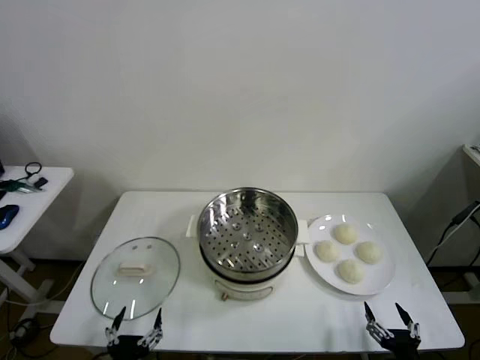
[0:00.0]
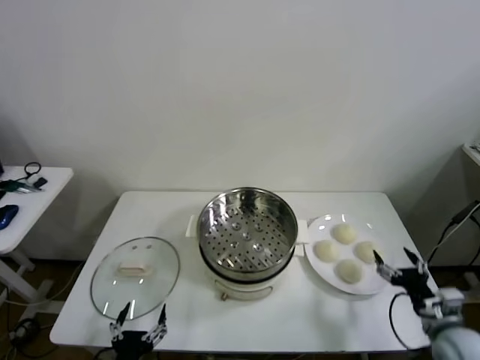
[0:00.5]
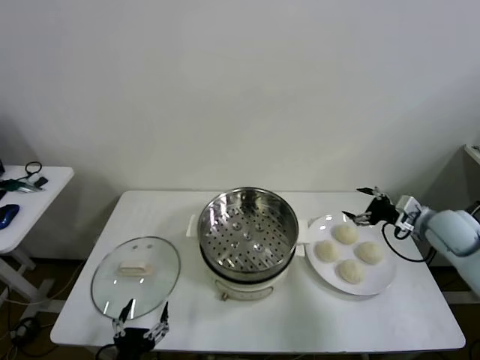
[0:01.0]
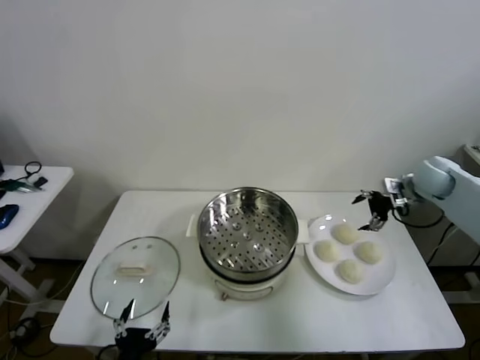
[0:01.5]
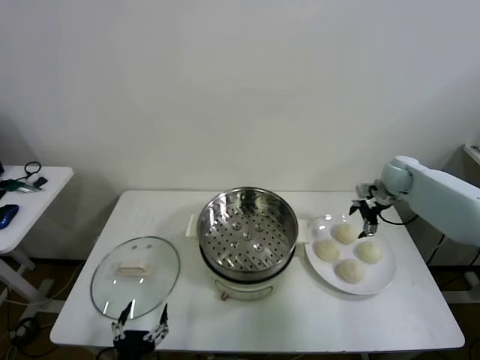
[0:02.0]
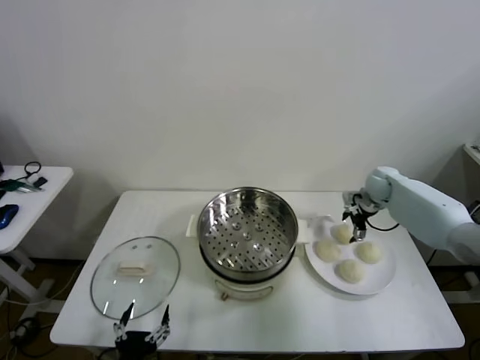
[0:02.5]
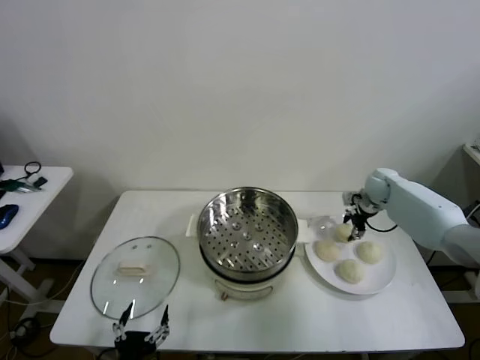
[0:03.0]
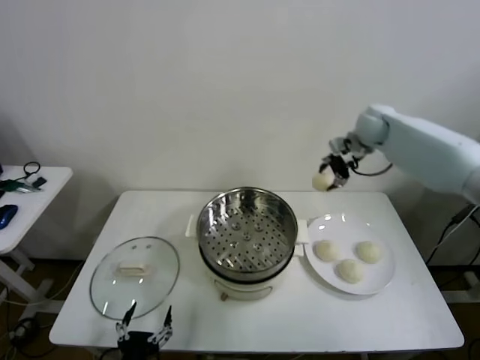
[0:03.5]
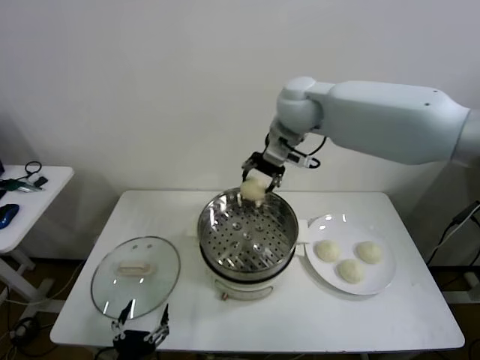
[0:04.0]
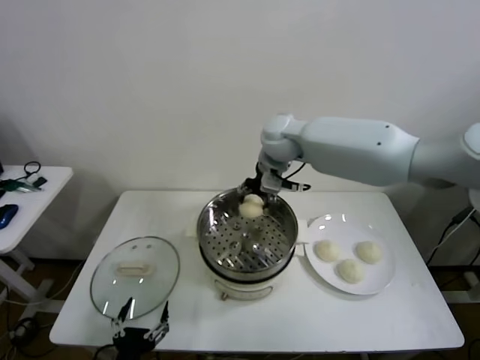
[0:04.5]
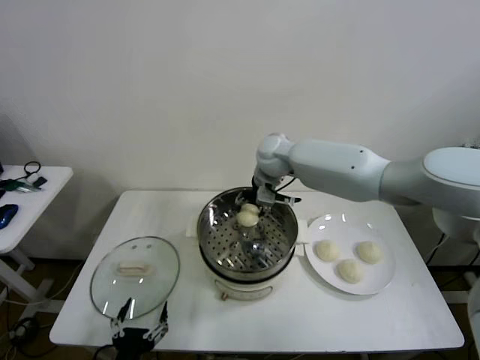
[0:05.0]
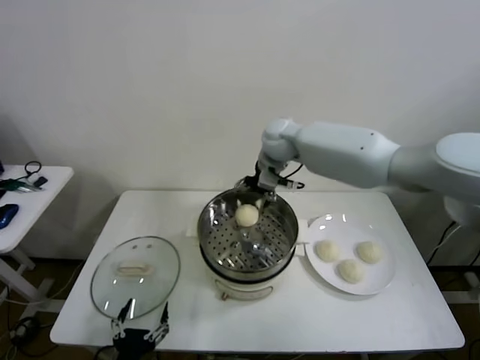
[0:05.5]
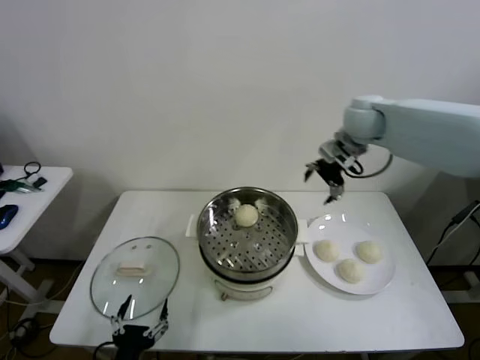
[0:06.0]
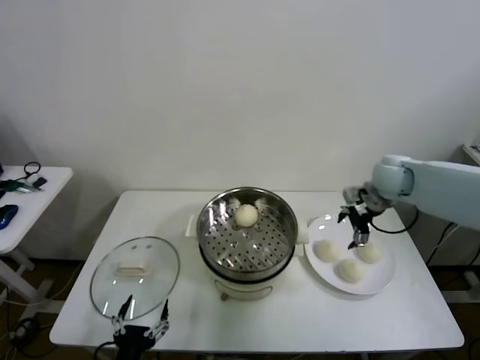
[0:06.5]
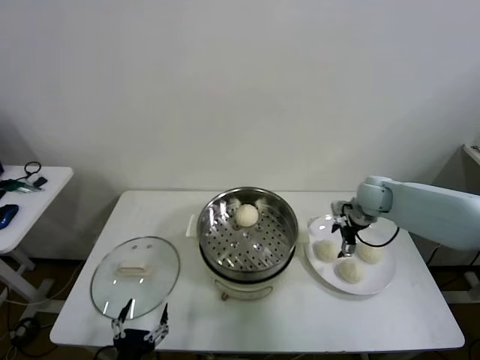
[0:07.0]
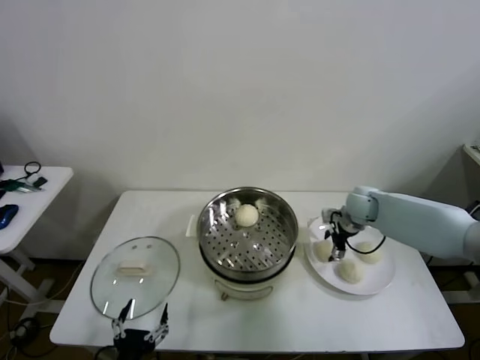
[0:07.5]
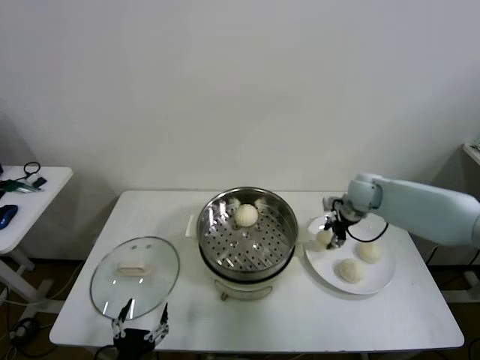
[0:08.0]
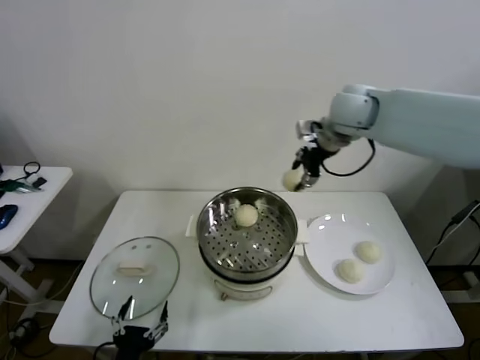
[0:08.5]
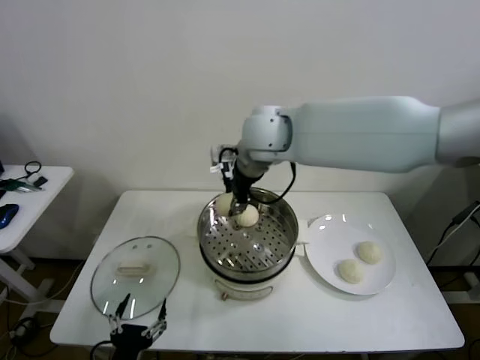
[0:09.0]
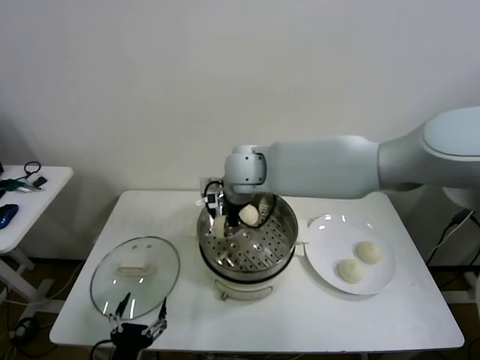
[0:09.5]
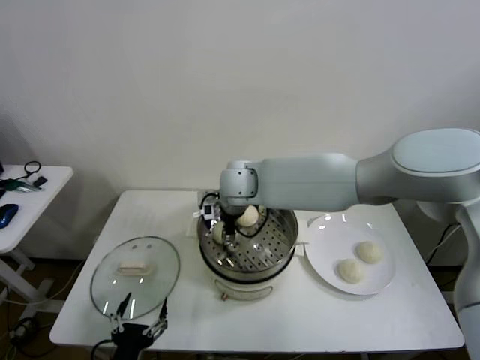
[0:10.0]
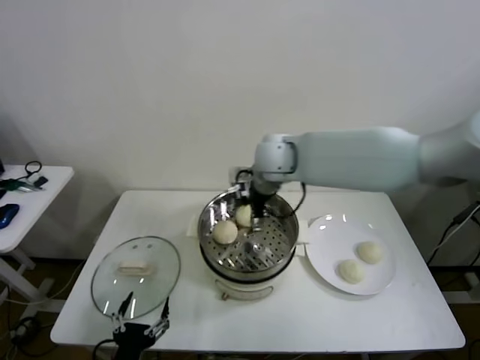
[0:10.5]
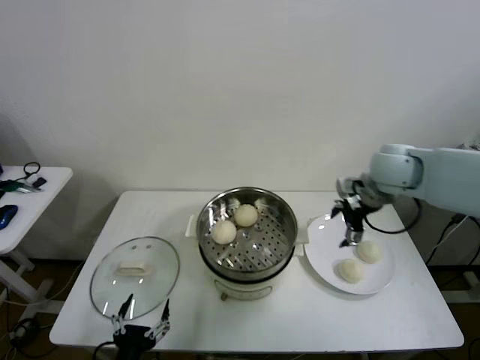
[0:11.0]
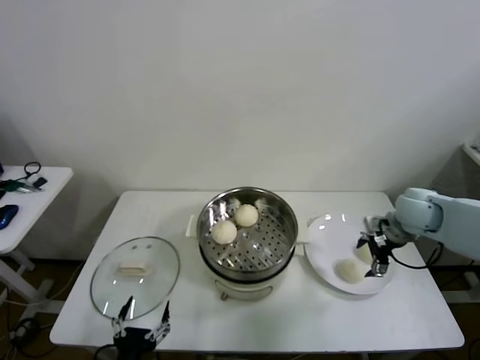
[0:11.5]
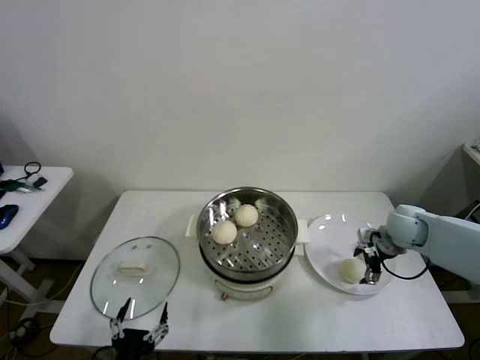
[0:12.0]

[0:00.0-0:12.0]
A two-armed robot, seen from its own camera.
Task of the whole recording: take steamed baozi put them in steamer then cover it.
Step, 0:00.0 to 0:03.0: Grasp the baozi in the plate with right gripper.
Step, 0:03.5 to 0:05.0: Place the baozi on the steamer with right gripper.
Step, 0:05.5 to 0:07.5: Grasp the baozi in the plate with right gripper.
Step, 0:08.0 to 0:10.0: Place the baozi on the steamer with right gripper.
0:02.0 to 0:04.0: The right gripper goes some 40 cm to the left and upward, and closes up.
0:04.0 to 0:06.0: The right gripper shifts roughly 20 cm to the right, and opens up.
0:06.0 to 0:08.0: The right gripper travels downward by some 15 cm, and closes.
0:08.0 to 0:10.0: The right gripper is displaced to the left by some 30 cm, and opens up.
0:10.0 to 0:12.0: The right gripper heads to the right, covering about 40 cm, and opens up.

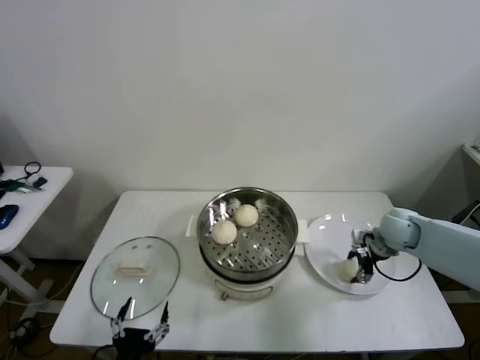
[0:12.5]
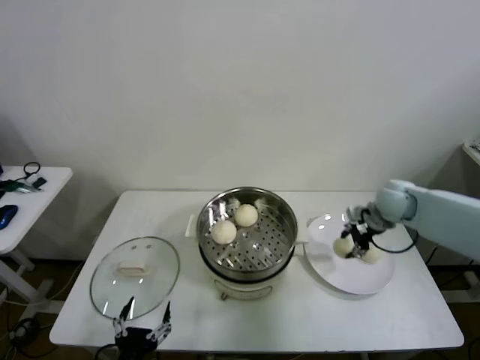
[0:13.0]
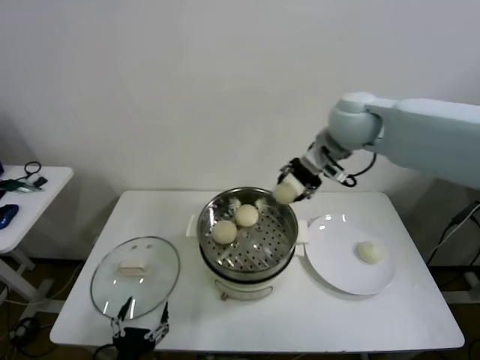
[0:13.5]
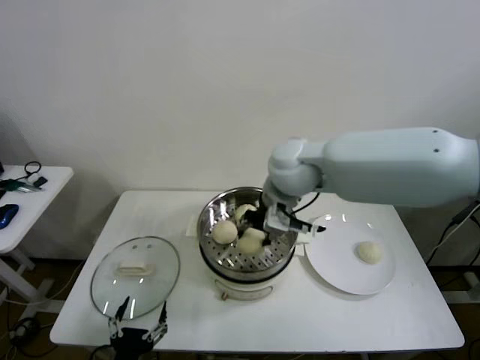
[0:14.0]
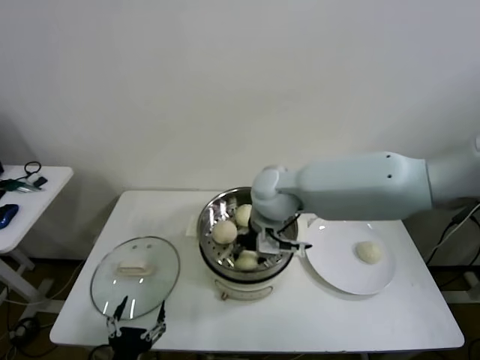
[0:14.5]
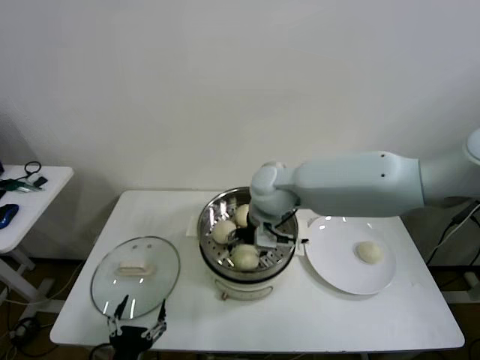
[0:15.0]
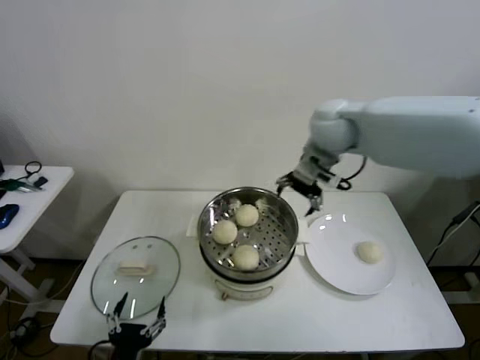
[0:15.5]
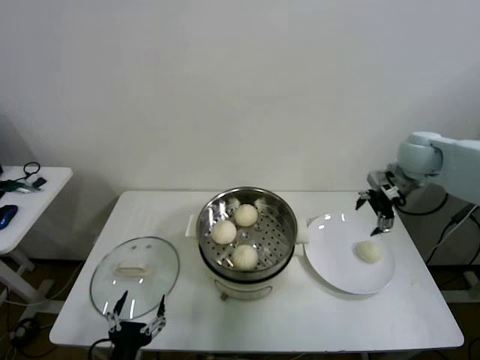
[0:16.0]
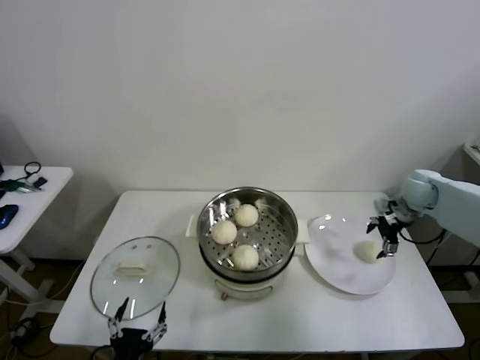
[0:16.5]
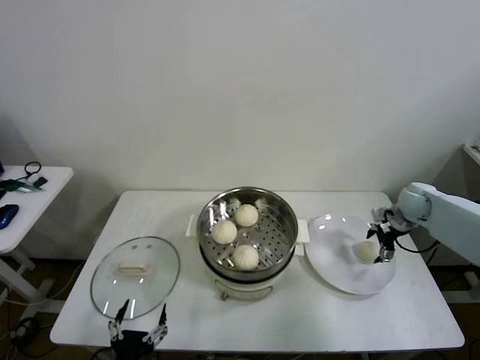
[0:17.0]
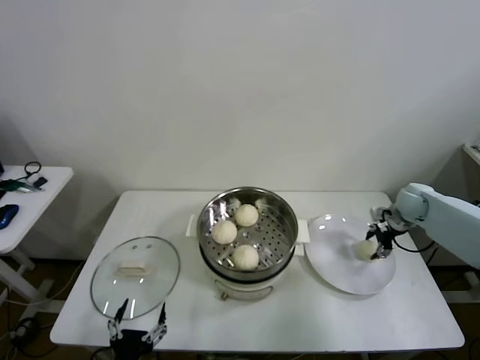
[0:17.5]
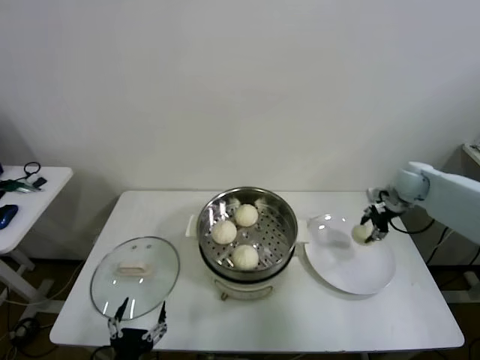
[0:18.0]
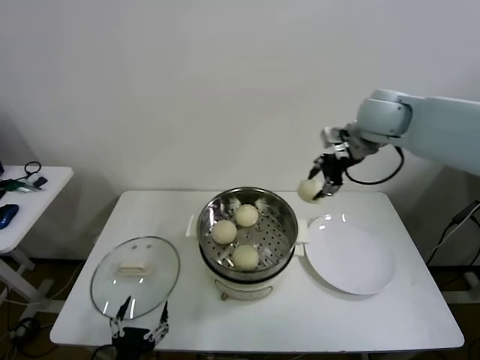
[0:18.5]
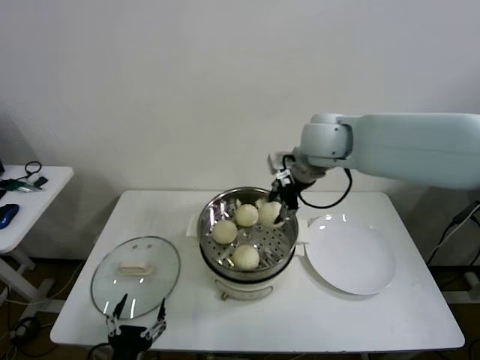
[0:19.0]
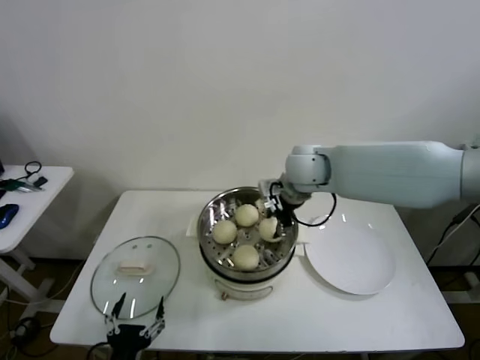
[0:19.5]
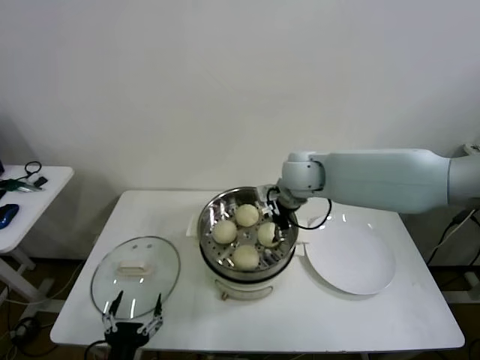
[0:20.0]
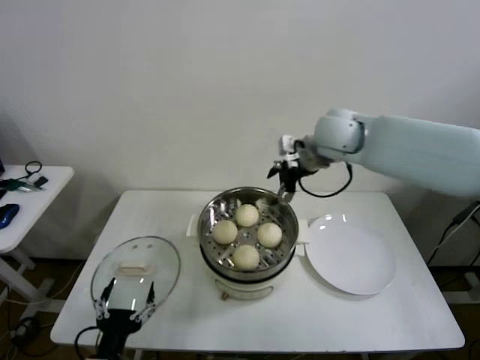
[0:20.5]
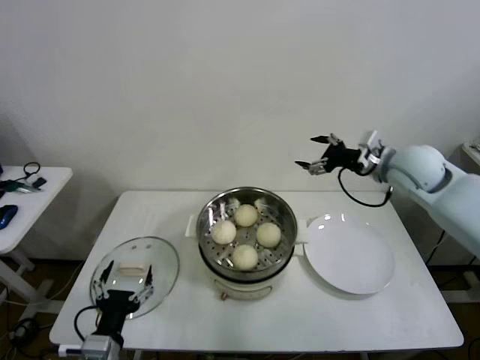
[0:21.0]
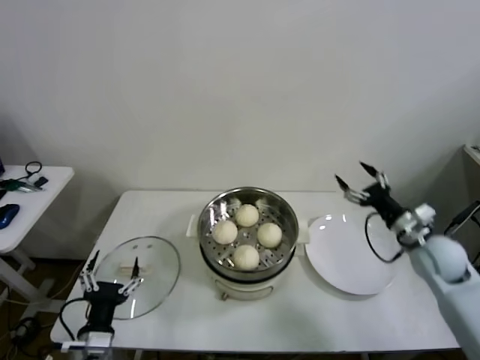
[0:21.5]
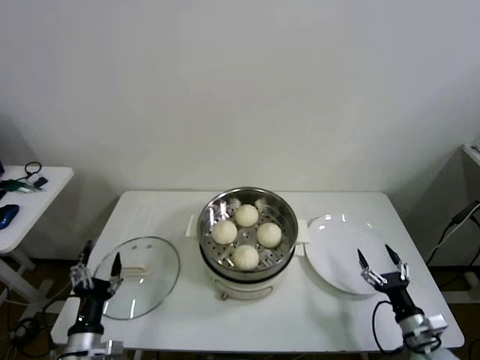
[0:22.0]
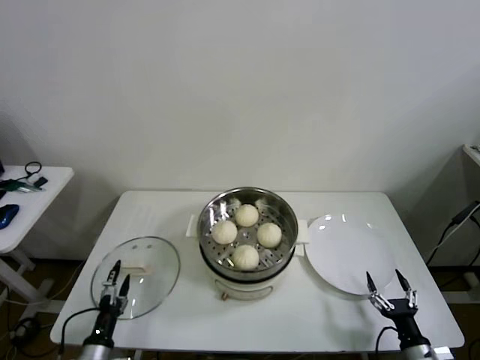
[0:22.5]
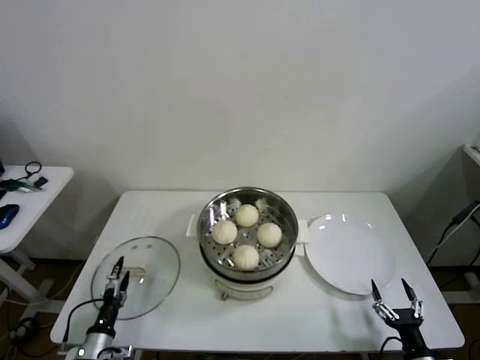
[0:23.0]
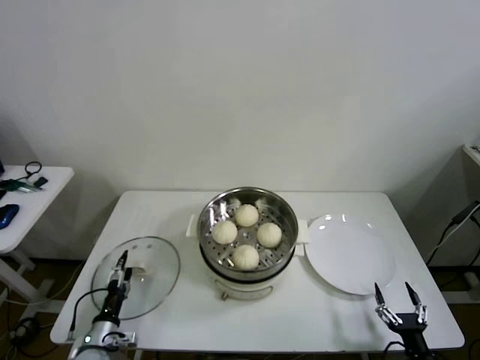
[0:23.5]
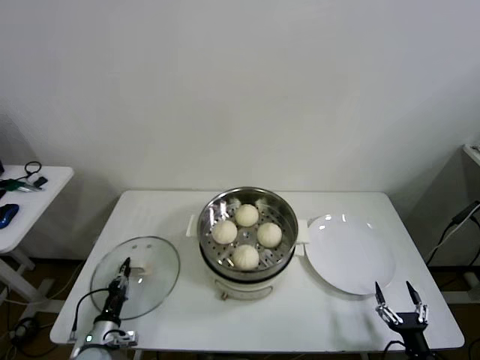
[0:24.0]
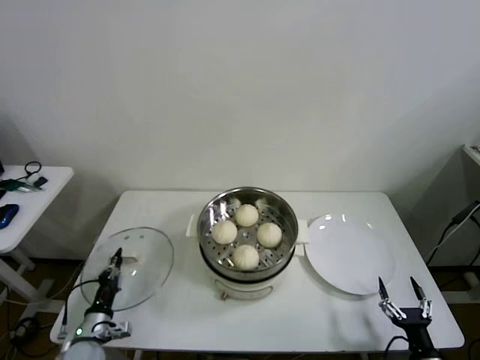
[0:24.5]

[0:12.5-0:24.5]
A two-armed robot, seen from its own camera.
Task of the whole recording: take steamed baozi put them in steamer then cover it.
Step, 0:13.0 to 0:15.0: Place the baozi on the steamer with right gripper.
Step, 0:15.5 to 0:17.5: Grasp the baozi in the plate with right gripper.
Step, 0:18.0 to 0:20.0: Place the baozi on the steamer with right gripper.
Step, 0:20.5 to 0:24.0: Grasp the pot lid with left gripper.
0:12.5 to 0:14.5: The right gripper is displaced to the left and upward by about 35 cm, and closes its fingers.
0:14.5 to 0:16.5: The right gripper shifts about 40 cm to the right, and opens its fingers.
0:16.5 to 0:18.5: The right gripper goes roughly 30 cm upward and to the left, and closes up.
0:18.5 to 0:20.5: The right gripper moves to the left, roughly 5 cm, and opens.
0:20.5 to 0:22.5: The right gripper goes roughly 60 cm downward, backward and to the right, while the left gripper shifts some 15 cm downward, to the left and forward.
0:22.5 to 0:24.5: The left gripper is displaced forward by roughly 5 cm, and closes.

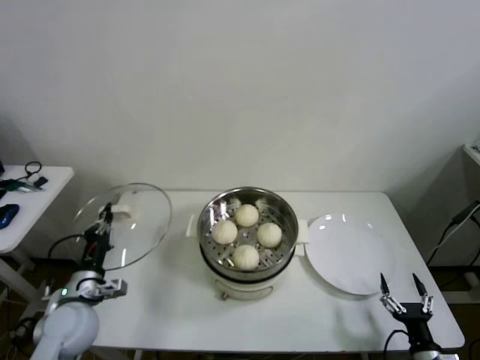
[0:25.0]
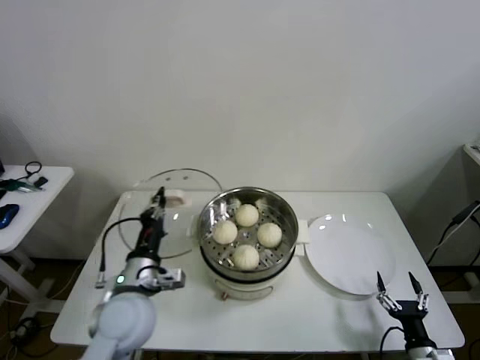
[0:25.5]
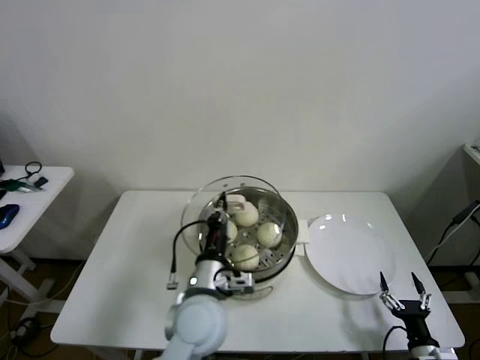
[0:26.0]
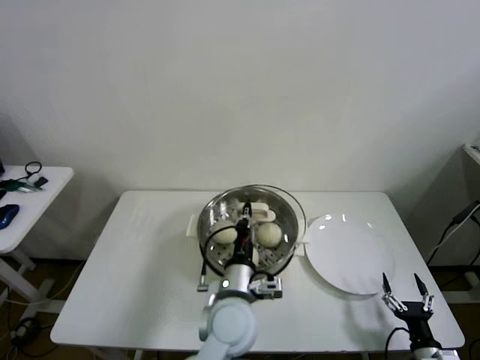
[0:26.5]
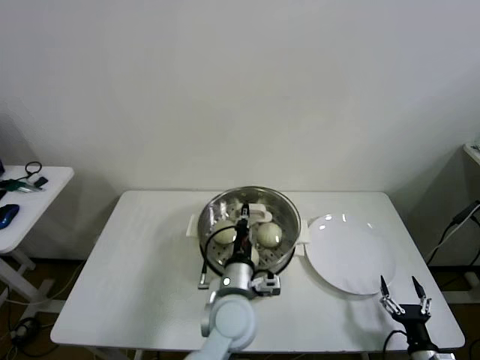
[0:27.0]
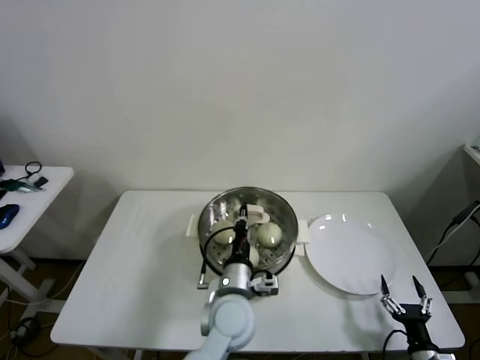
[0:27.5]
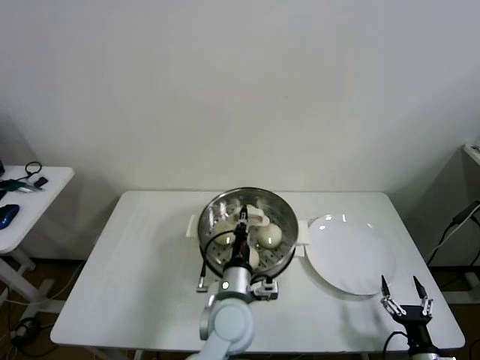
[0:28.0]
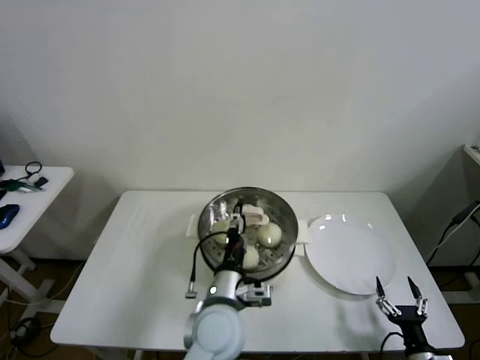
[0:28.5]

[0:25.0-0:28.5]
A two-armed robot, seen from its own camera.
Task of the whole recording: take steamed baozi put them in steamer then cover it.
0:25.0 to 0:27.0: The left gripper heads to the right, covering some 35 cm.
0:27.0 to 0:28.5: The left gripper opens.
